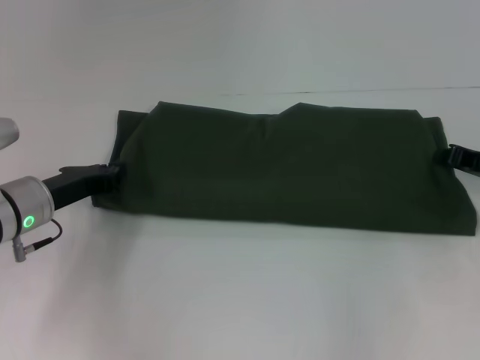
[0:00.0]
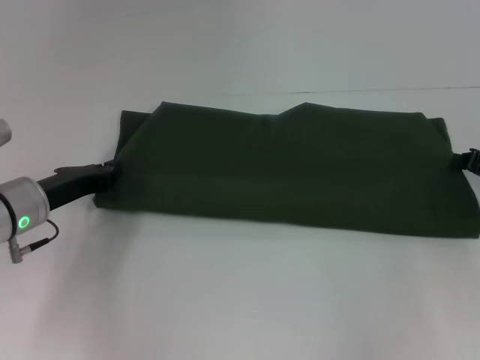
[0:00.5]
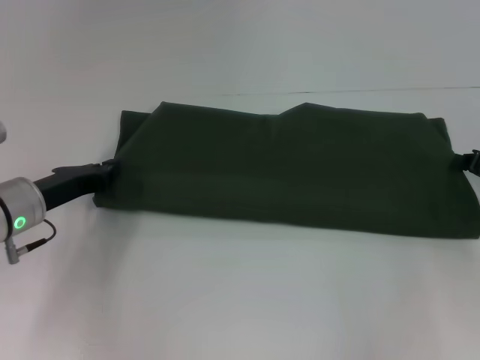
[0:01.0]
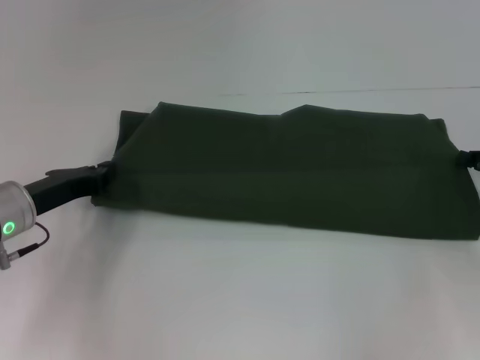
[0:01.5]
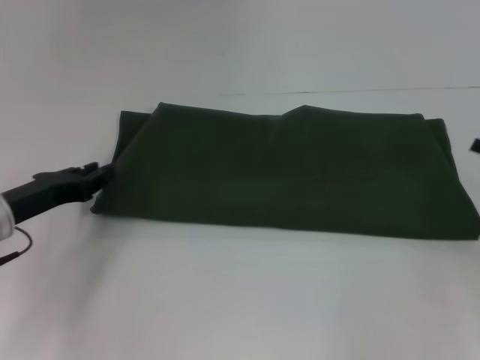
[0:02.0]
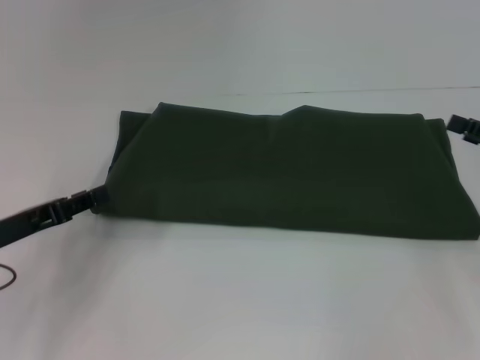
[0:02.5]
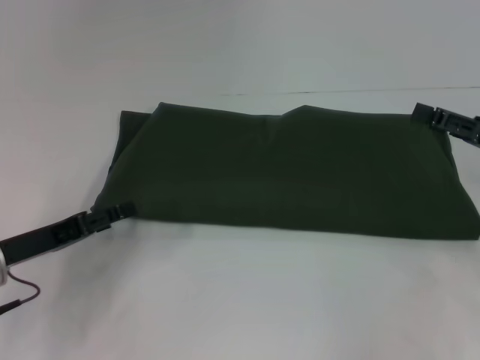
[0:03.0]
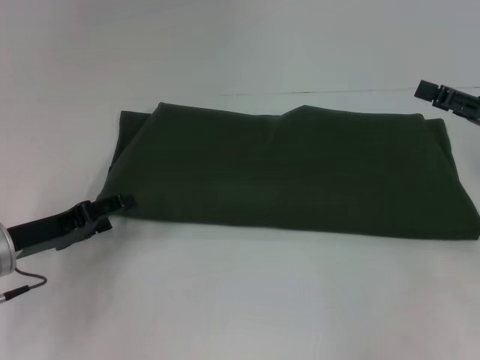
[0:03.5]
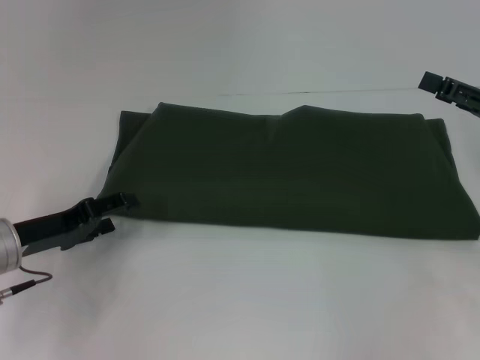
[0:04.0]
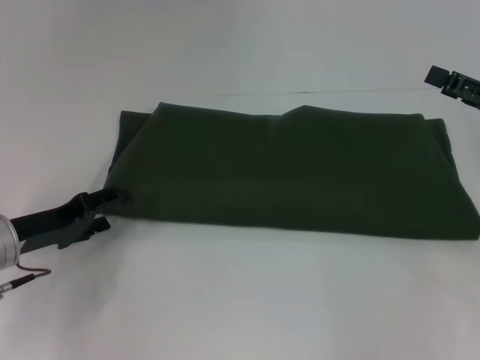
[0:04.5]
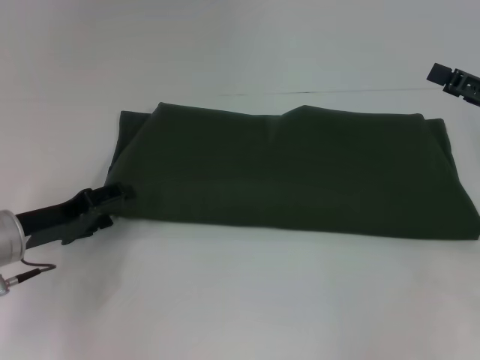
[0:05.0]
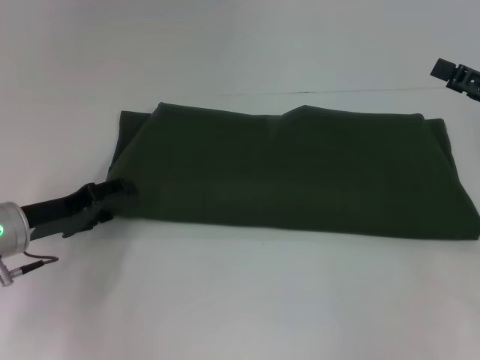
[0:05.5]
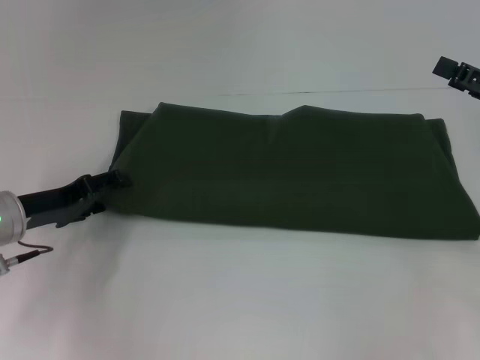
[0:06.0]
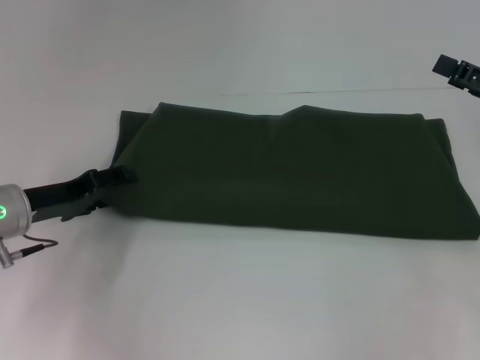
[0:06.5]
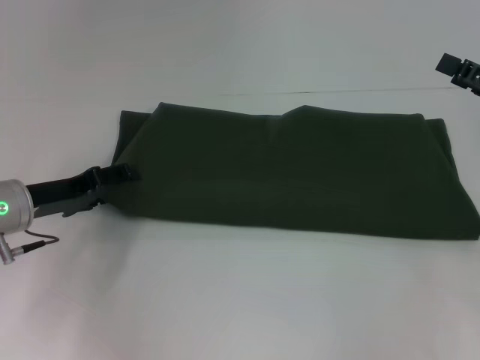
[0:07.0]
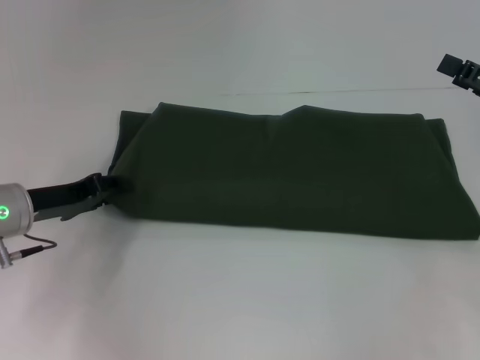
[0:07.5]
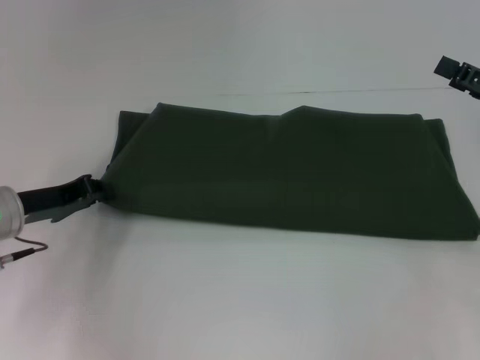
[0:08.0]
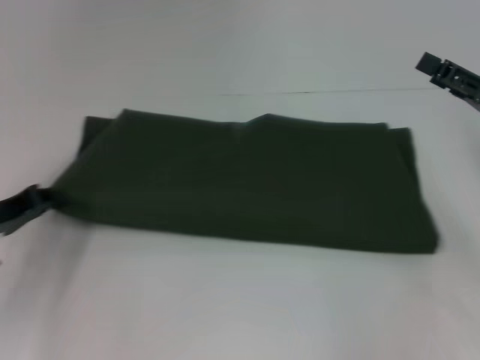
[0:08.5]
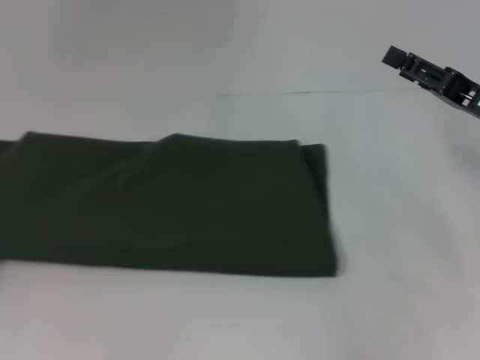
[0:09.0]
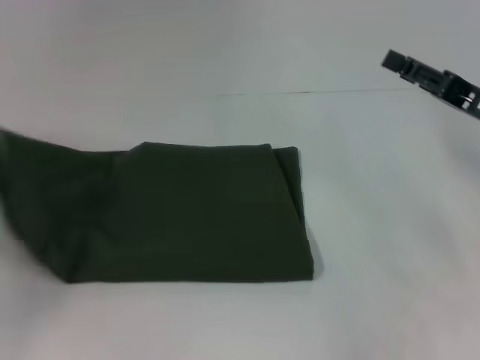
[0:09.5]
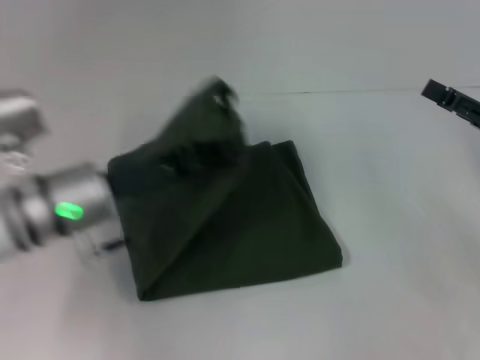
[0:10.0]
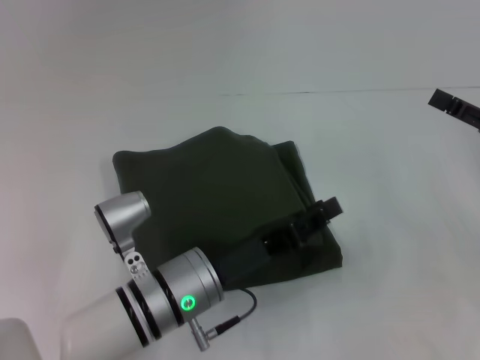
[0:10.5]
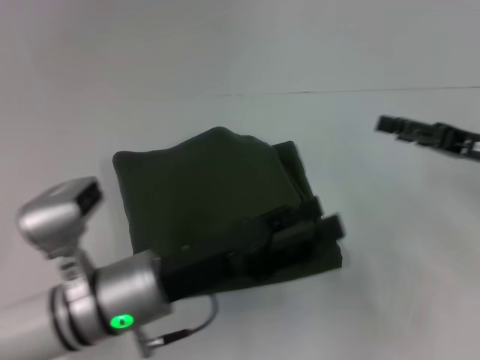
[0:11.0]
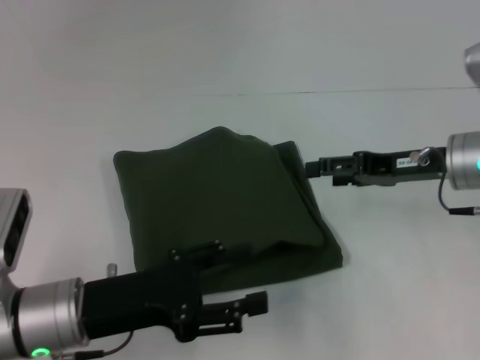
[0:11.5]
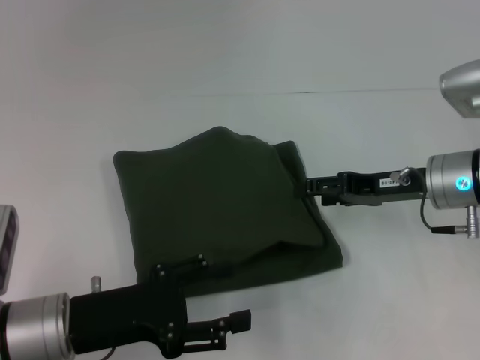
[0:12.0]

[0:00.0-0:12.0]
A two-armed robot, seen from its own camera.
Step, 0:00.0 to 0:10.5: Fold the clothes with your left hand.
0:00.0 to 0:02.0: The right gripper travels backward by some 5 cm.
0:02.0 to 0:04.0: The left gripper opens its fingers. The right gripper travels upward by some 5 cm, and opens its fingers.
0:04.0 to 0:06.0: There are only small adjustments of the grippers.
0:06.0 to 0:08.0: The left gripper closes.
0:08.0 to 0:10.0: The left gripper goes about 10 cm to the right.
0:10.0 to 0:12.0: The left gripper moves backward, approximately 10 cm, travels to the right and back again, roughly 10 cm each way, and opens its fingers, while the right gripper moves to the left and forward, roughly 10 cm.

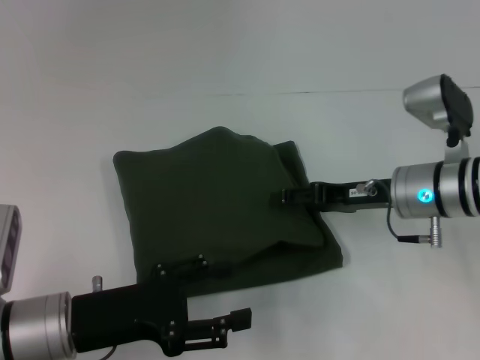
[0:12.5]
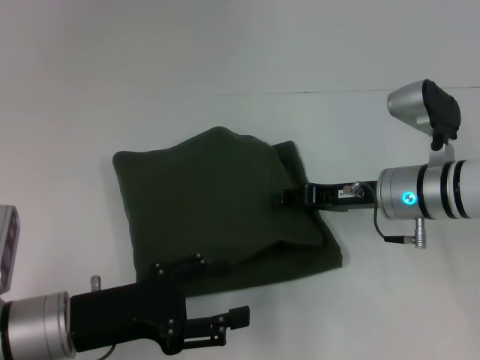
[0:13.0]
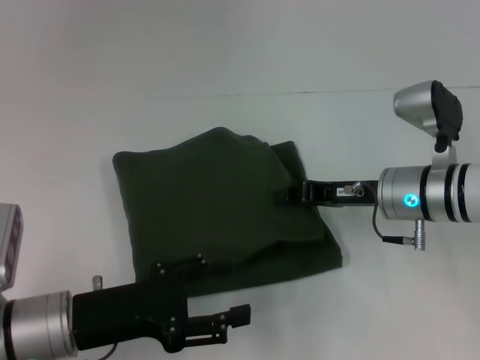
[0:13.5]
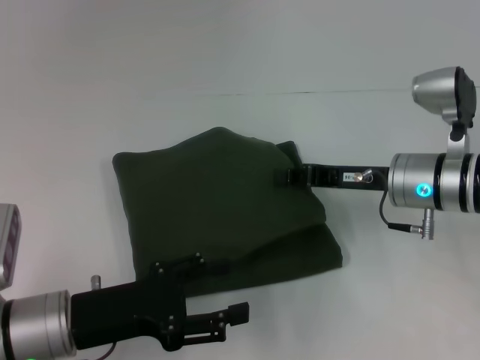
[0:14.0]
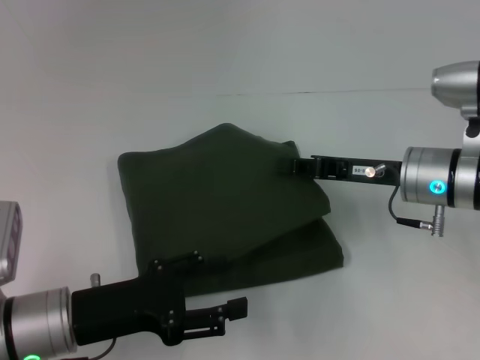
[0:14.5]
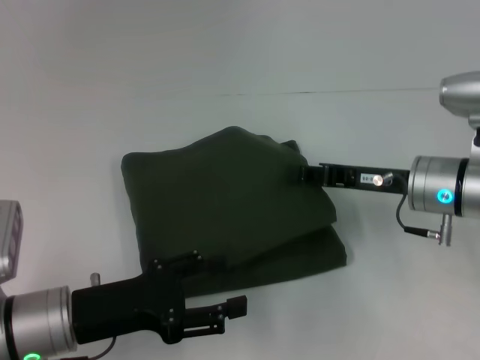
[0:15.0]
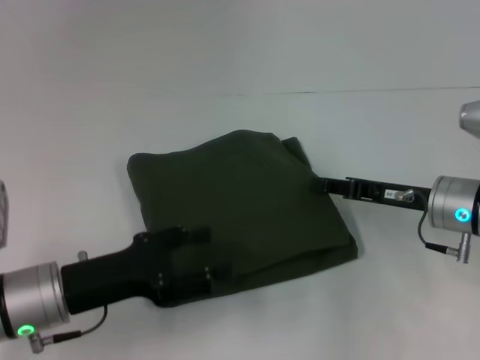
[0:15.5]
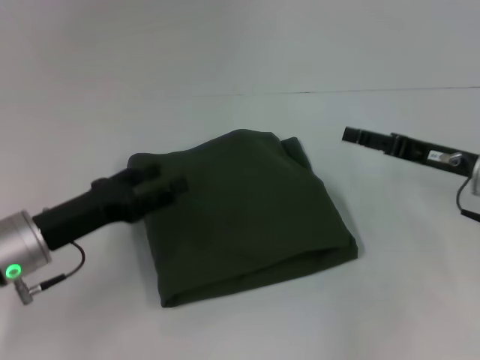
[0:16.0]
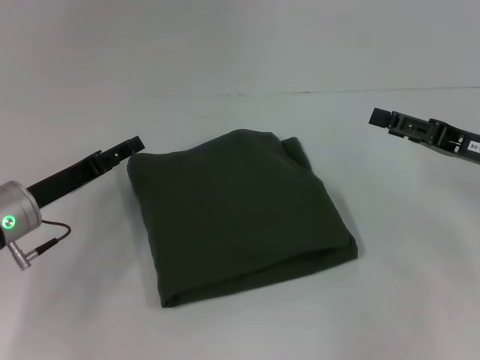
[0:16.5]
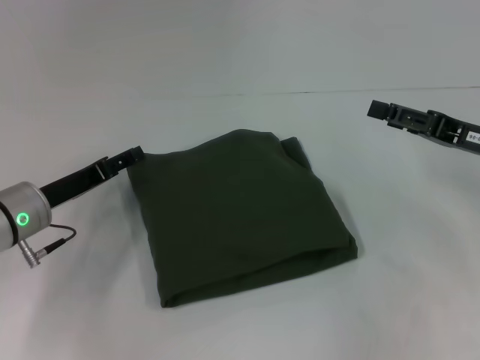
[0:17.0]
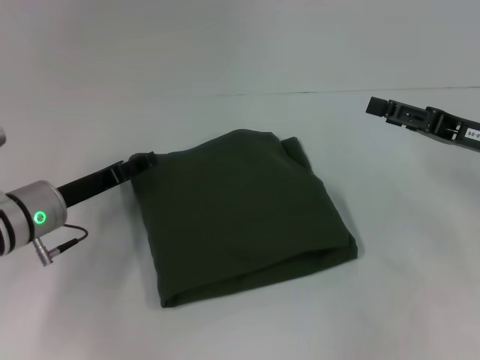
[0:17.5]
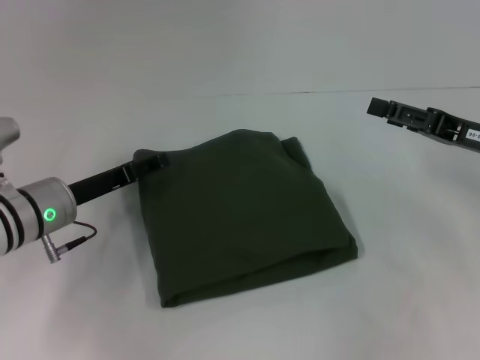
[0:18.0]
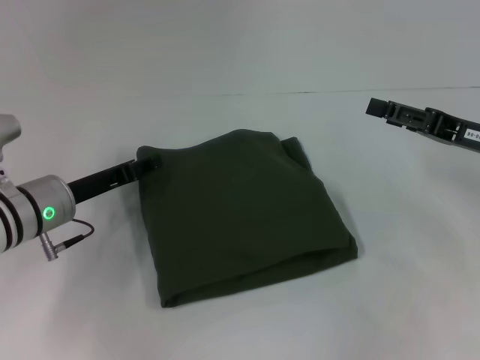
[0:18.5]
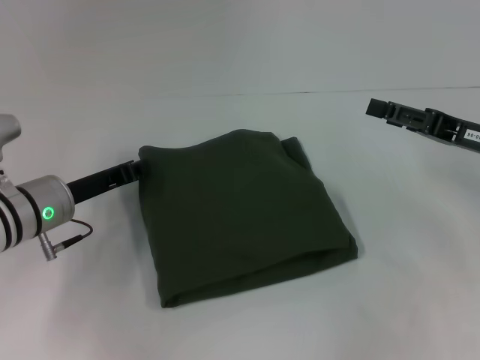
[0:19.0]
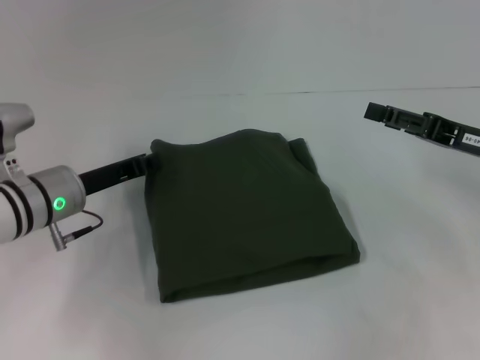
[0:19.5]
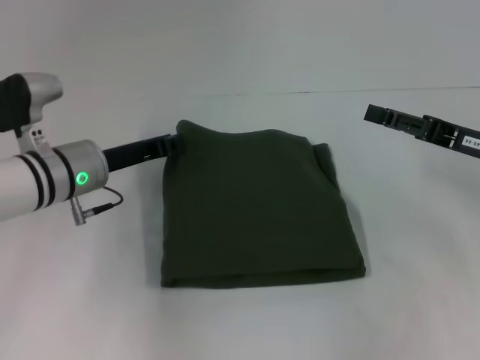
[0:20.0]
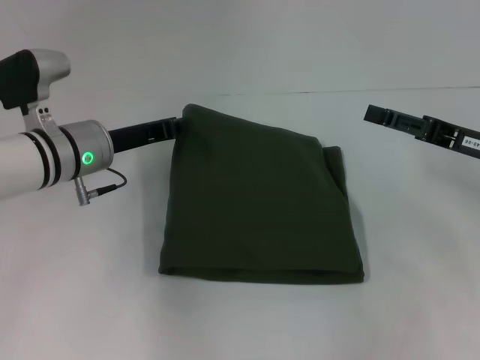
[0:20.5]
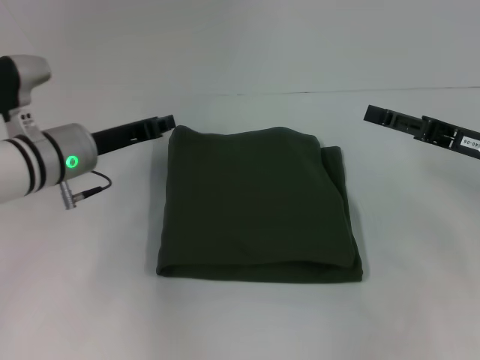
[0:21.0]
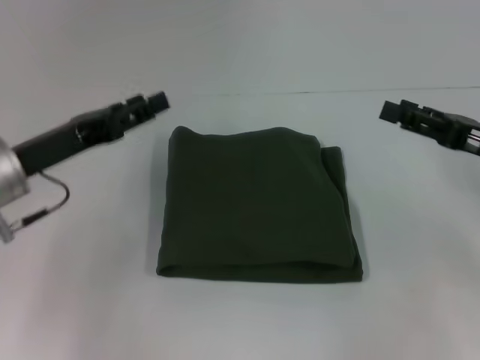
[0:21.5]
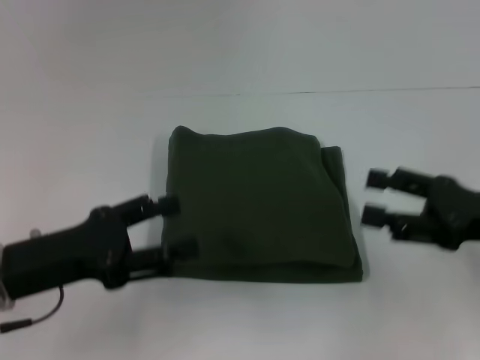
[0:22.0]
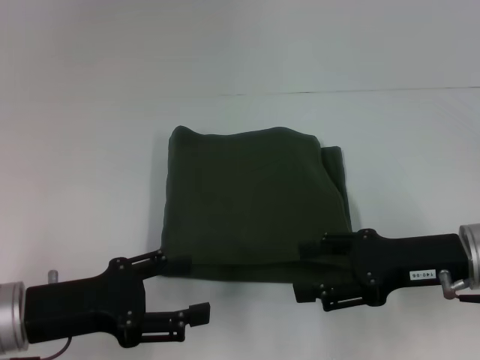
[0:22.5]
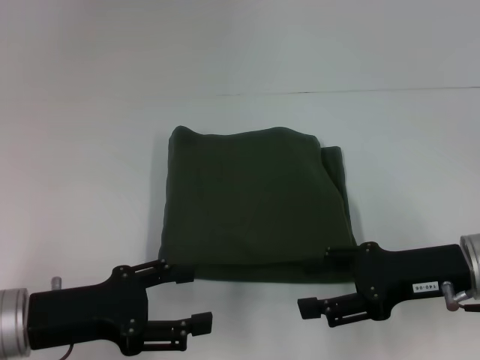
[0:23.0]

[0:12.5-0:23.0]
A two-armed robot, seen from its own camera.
0:12.5 to 0:14.5: The right gripper closes its fingers.
0:14.5 to 0:16.5: The right gripper is displaced to the right by some 10 cm, and opens. Meanwhile the left gripper goes some 10 cm forward.
0:16.5 to 0:19.0: The left gripper closes.
0:19.0 to 0:21.0: The left gripper ends up approximately 5 cm from where it was.
0:21.0 to 0:23.0: The right gripper heads backward and to the left, covering roughly 10 cm. The left gripper goes about 15 cm backward, and opens up.
